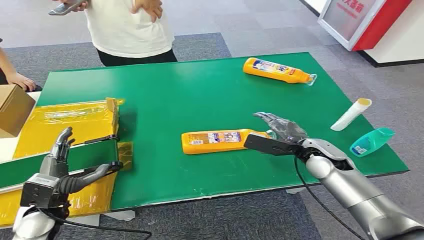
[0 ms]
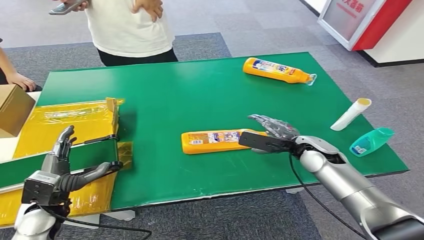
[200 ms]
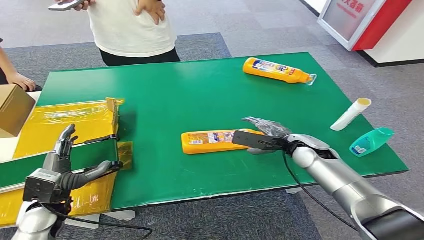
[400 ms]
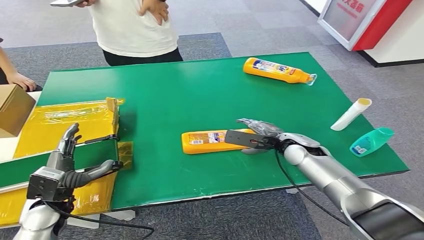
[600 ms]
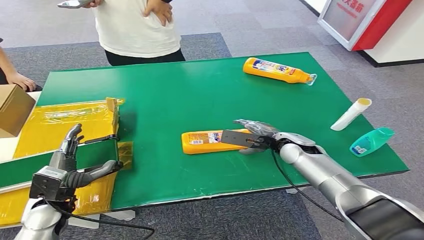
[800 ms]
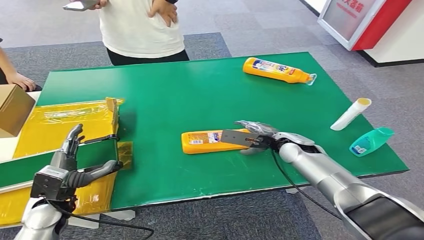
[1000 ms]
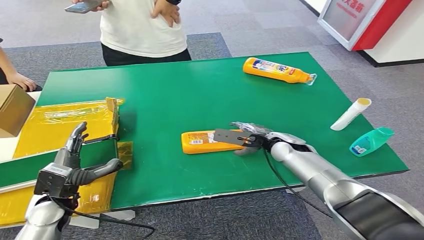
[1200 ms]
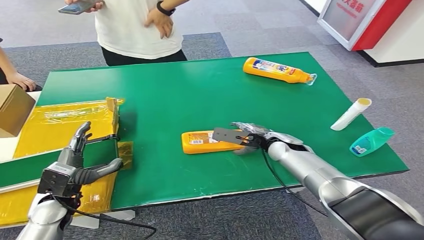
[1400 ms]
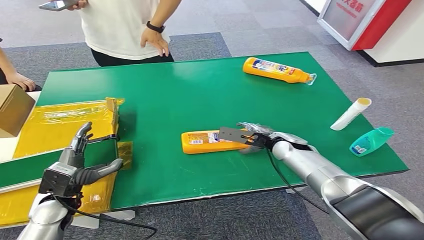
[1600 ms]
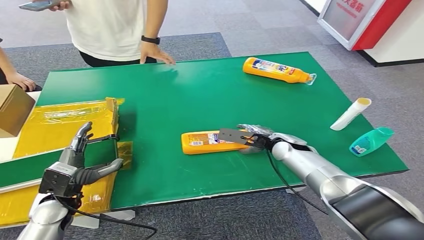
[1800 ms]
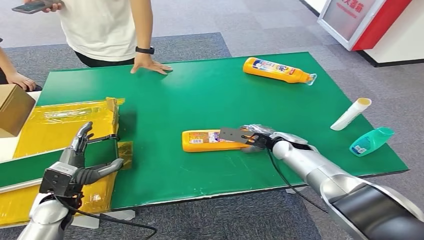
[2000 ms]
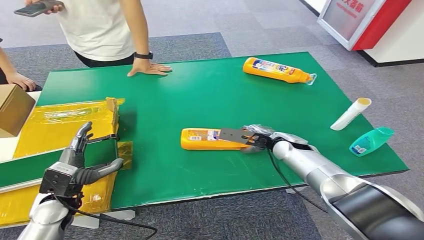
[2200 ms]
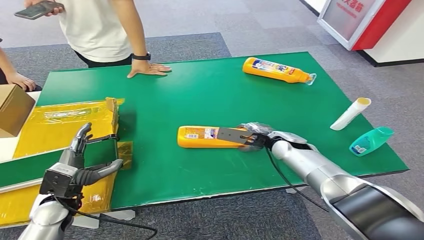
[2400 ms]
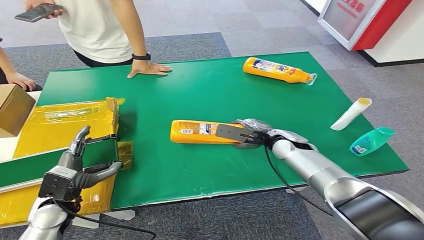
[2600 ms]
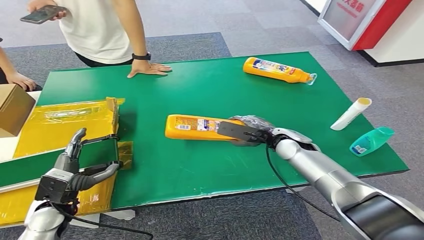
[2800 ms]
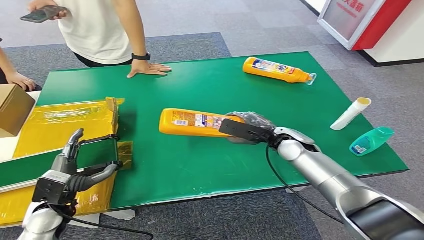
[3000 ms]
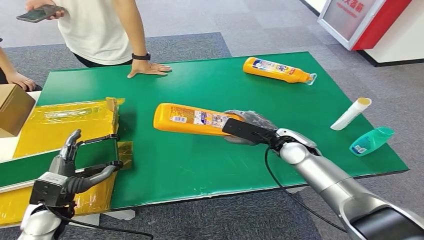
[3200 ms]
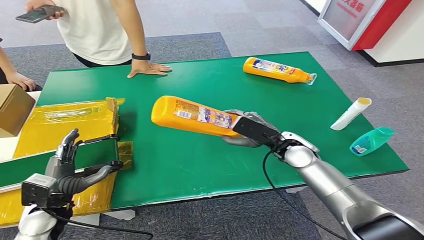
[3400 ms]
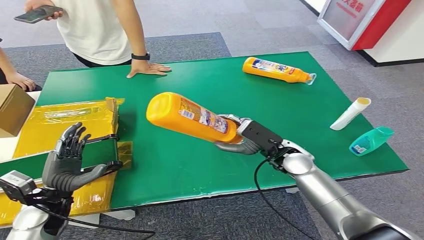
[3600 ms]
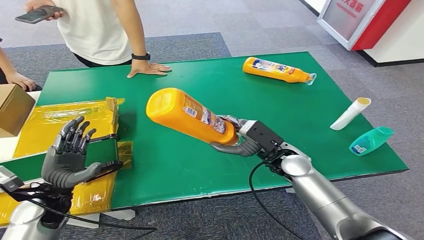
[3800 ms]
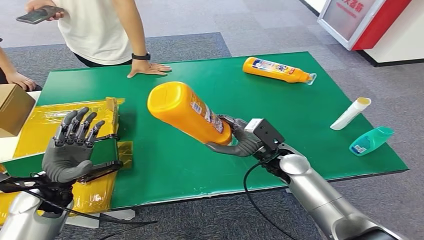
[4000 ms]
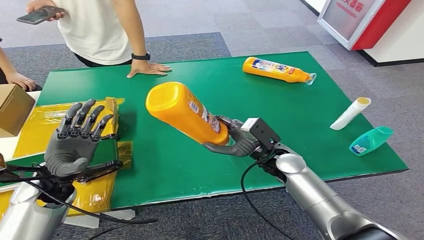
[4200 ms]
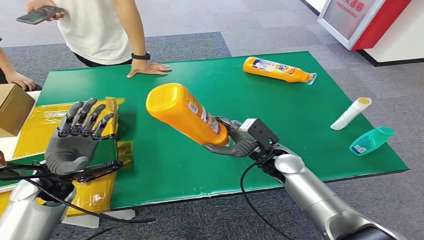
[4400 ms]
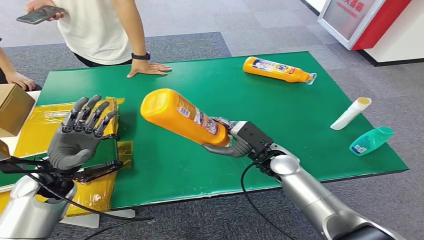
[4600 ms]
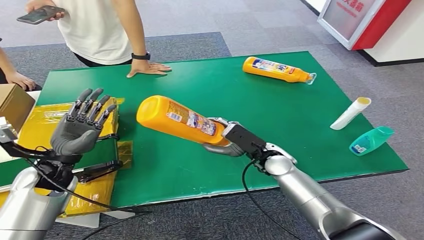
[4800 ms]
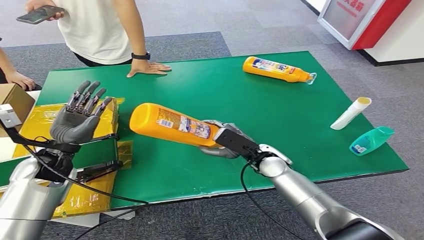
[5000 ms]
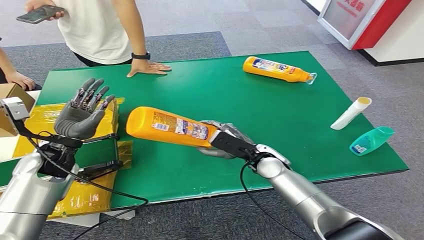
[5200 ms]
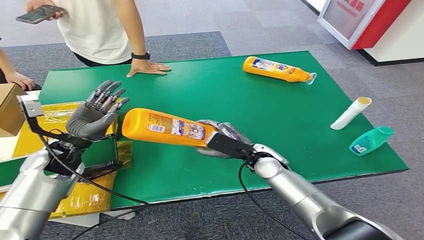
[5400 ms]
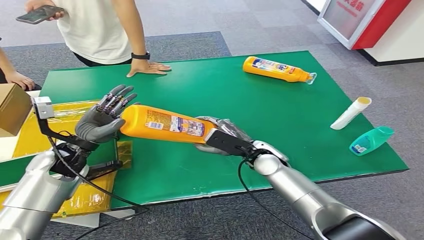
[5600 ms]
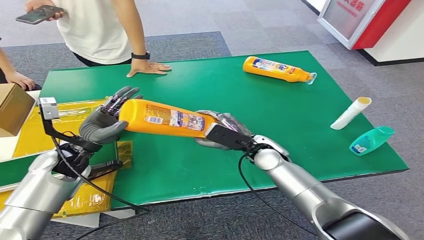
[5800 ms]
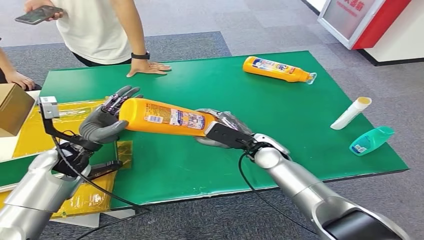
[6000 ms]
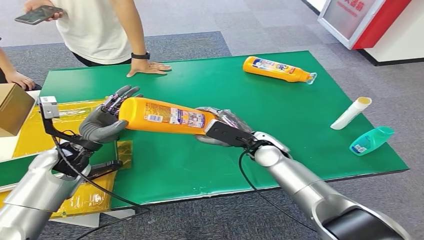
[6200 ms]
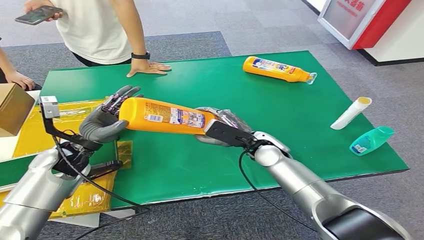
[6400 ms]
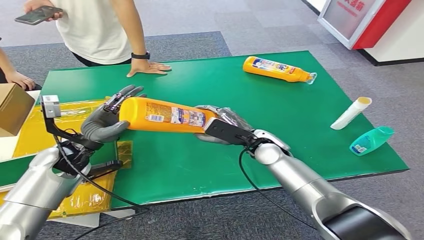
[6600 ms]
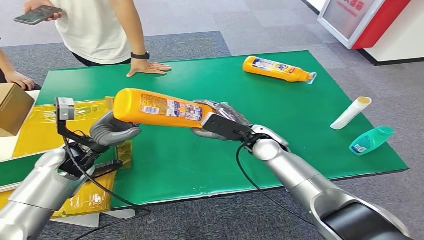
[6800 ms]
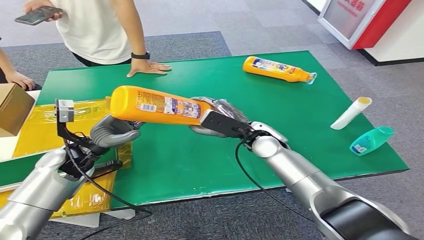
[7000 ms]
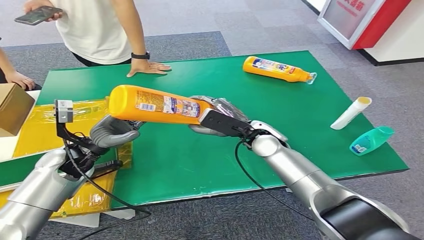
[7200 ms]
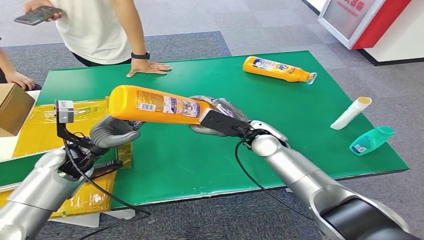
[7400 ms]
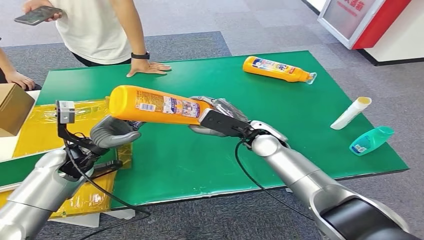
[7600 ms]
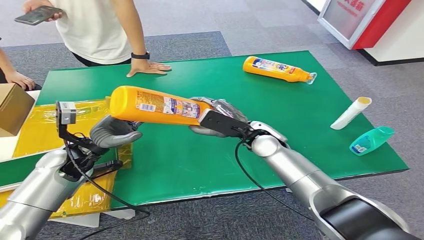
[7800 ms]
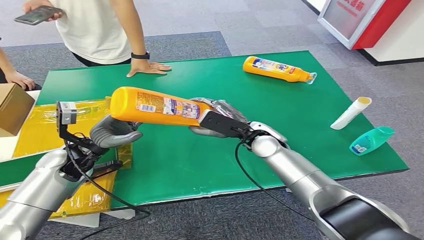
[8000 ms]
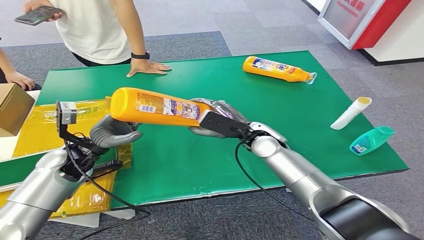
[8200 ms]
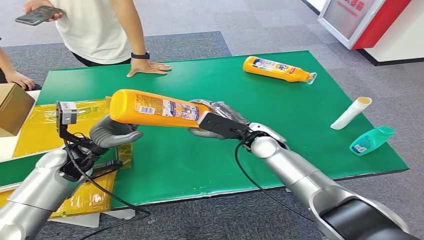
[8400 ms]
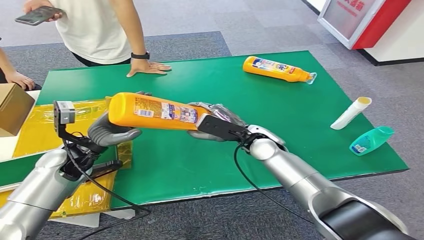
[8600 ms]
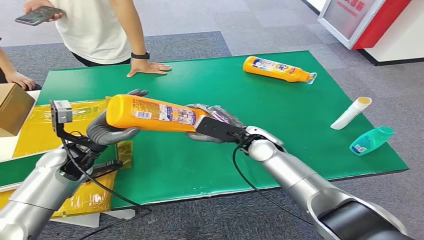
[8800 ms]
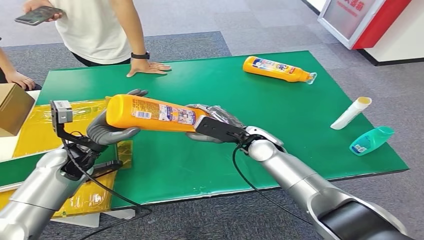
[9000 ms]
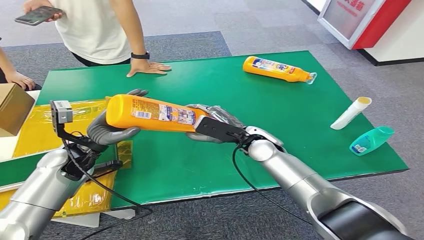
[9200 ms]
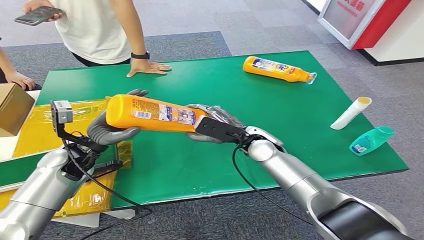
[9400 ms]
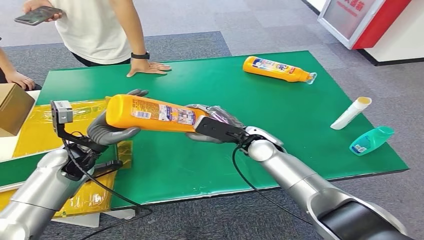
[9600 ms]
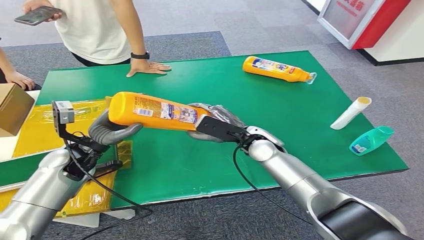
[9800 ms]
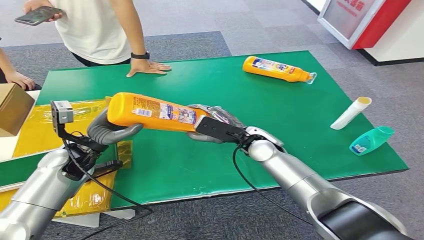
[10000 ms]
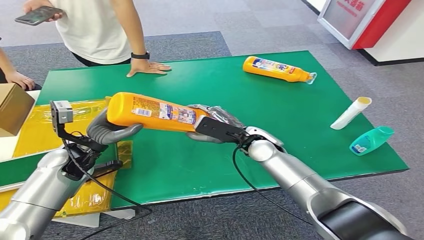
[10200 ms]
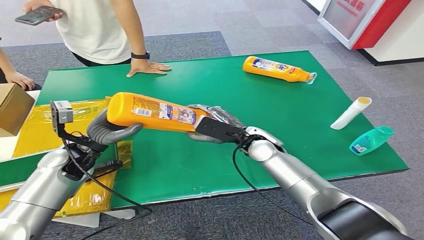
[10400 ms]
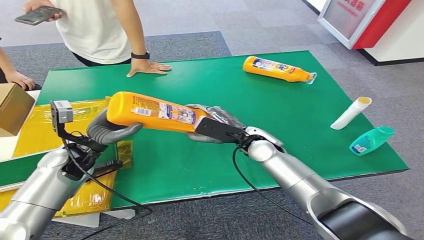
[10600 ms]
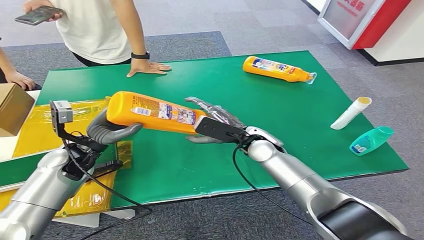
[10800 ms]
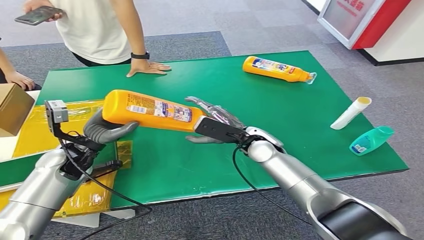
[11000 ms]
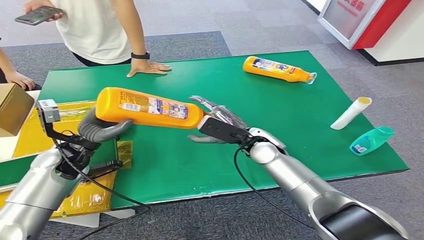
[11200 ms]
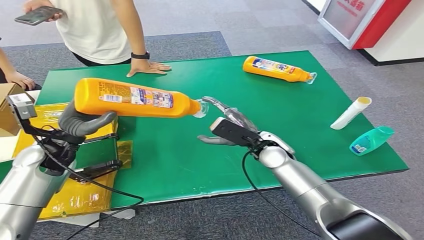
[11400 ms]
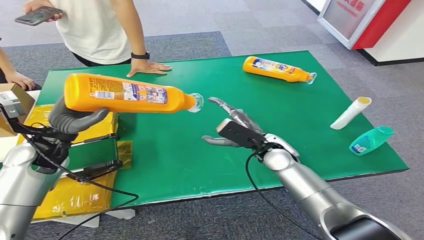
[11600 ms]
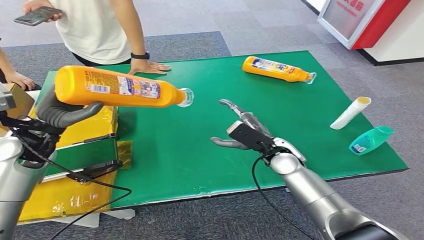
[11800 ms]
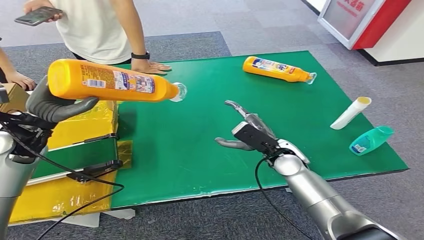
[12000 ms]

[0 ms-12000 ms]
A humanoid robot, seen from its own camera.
Step, 0 ms to 5200 ms: Pick up the bottle from the table.
4400 ms to 6000 ms: The left hand is displaced forward by about 5 cm.
6000 ms to 9000 ms: The hands move only a little.
9000 ms to 10400 ms: Neither hand changes place.

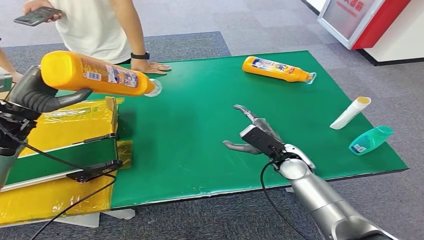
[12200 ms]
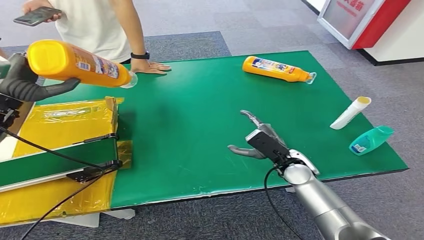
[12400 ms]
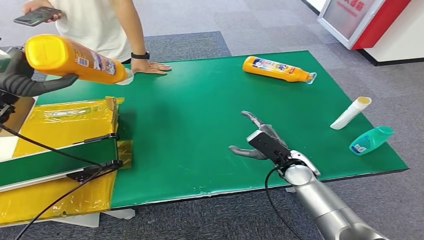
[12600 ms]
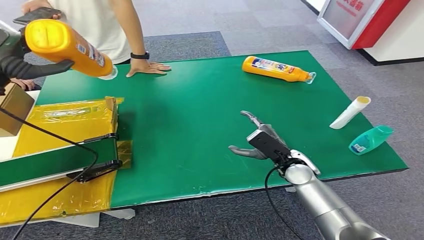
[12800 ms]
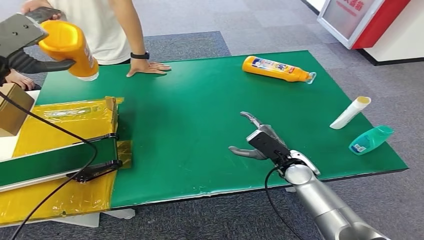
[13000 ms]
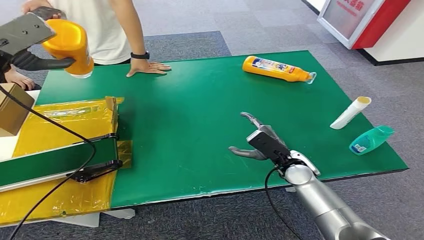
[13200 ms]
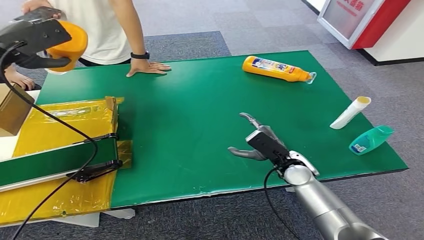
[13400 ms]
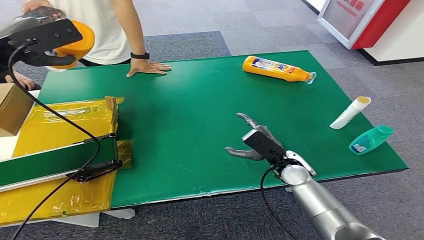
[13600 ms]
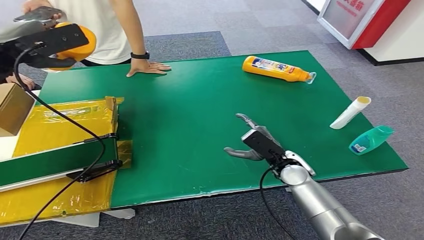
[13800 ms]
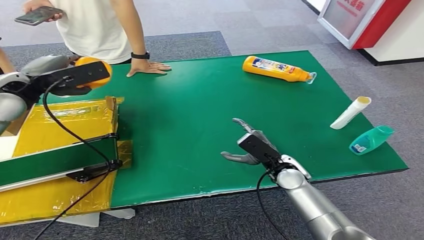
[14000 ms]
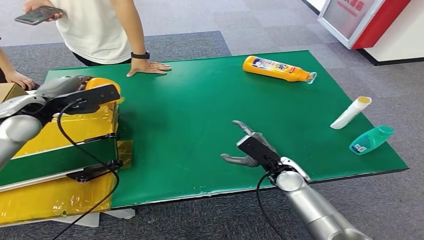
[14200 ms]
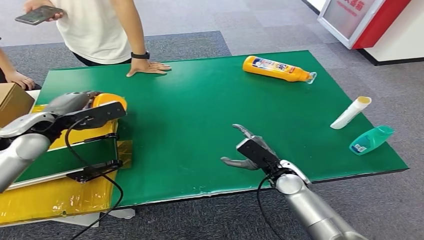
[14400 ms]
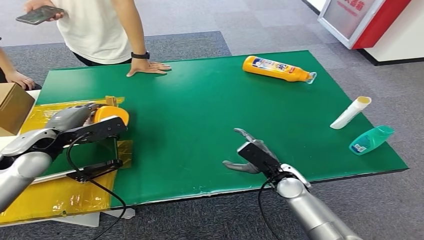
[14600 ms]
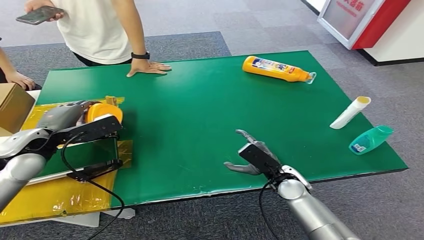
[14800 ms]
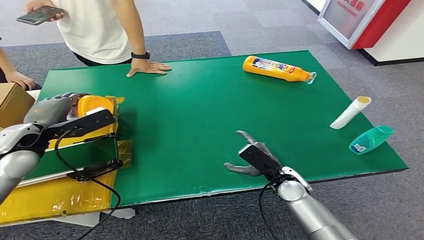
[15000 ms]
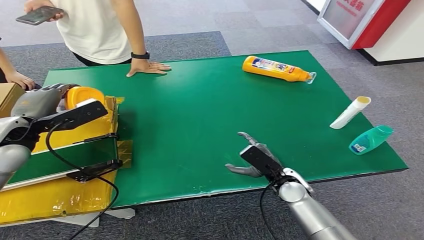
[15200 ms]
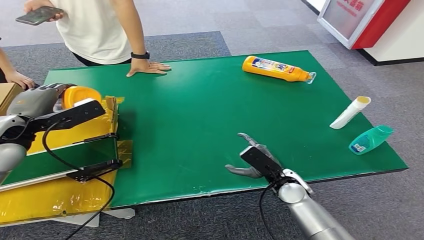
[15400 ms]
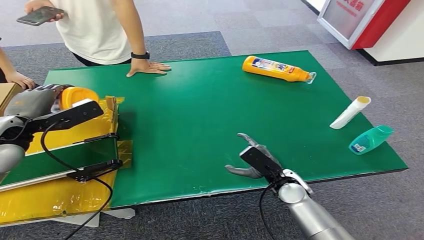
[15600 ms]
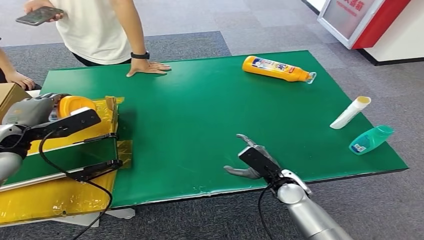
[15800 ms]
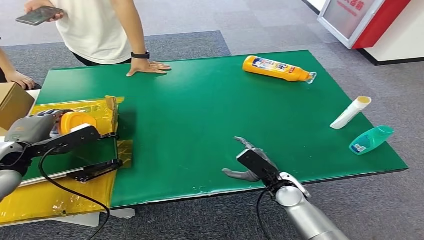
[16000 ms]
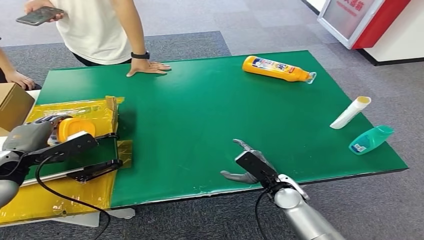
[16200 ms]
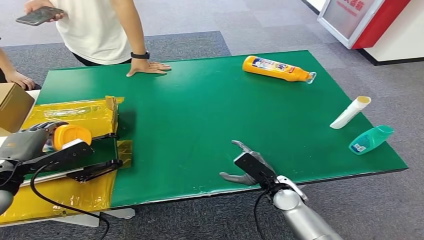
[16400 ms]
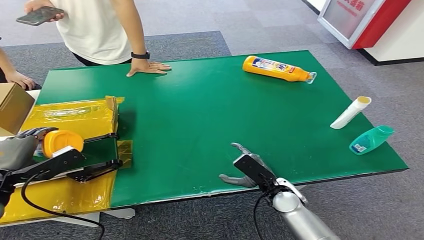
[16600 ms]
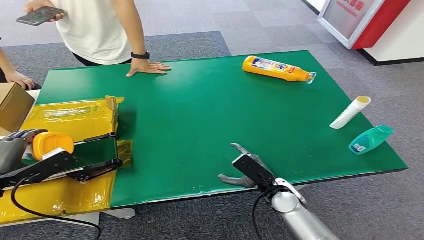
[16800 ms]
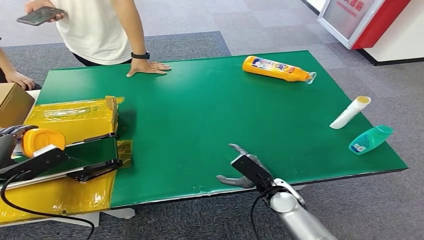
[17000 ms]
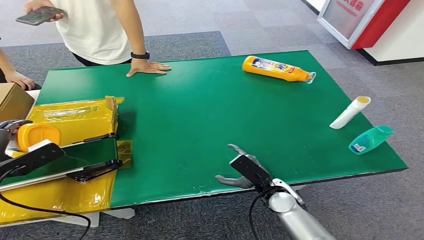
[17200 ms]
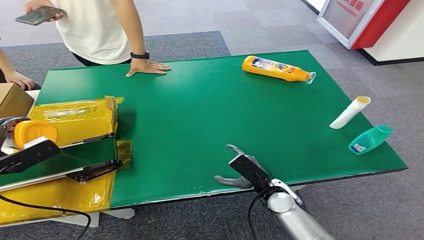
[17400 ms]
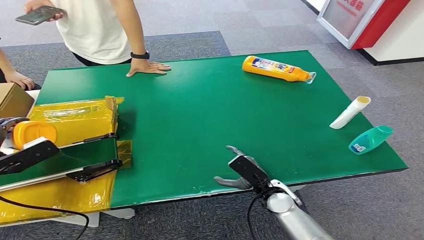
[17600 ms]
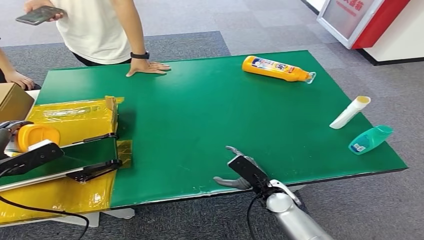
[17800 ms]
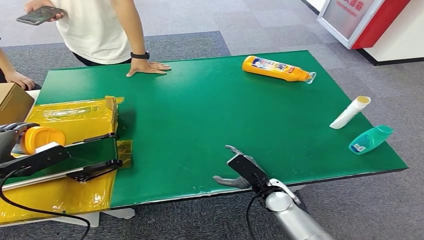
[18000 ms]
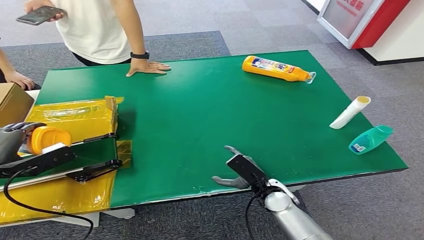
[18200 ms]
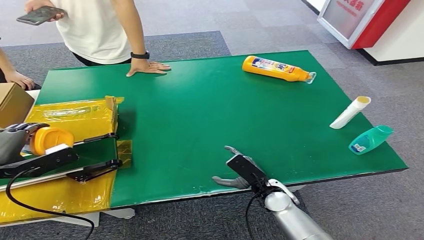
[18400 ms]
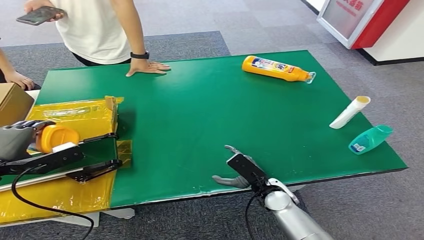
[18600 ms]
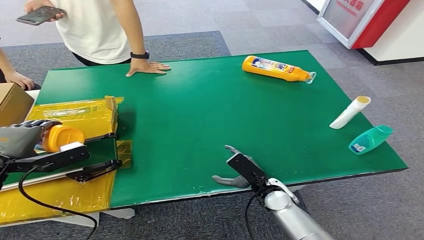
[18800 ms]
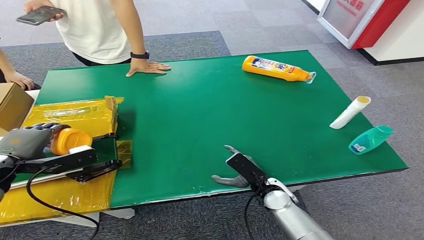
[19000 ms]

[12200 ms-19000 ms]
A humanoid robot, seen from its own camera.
13600 ms to 15000 ms: The right hand shifts by approximately 5 cm. The left hand is displaced downward and backward by about 20 cm.
15000 ms to 16200 ms: The left hand shifts about 5 cm backward.
16200 ms to 17600 ms: The left hand shifts some 5 cm to the left.
17600 ms to 19000 ms: The left hand shifts by roughly 5 cm.
